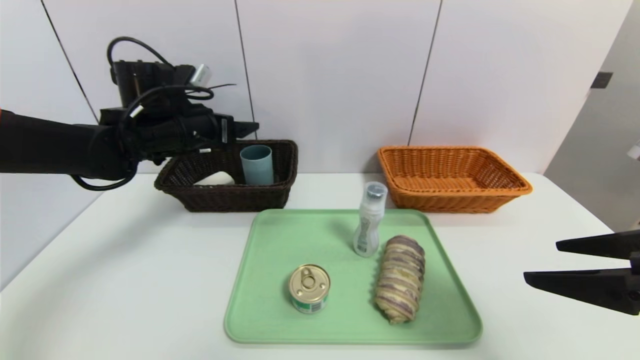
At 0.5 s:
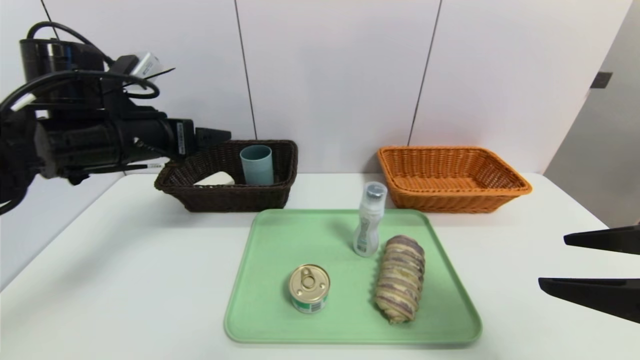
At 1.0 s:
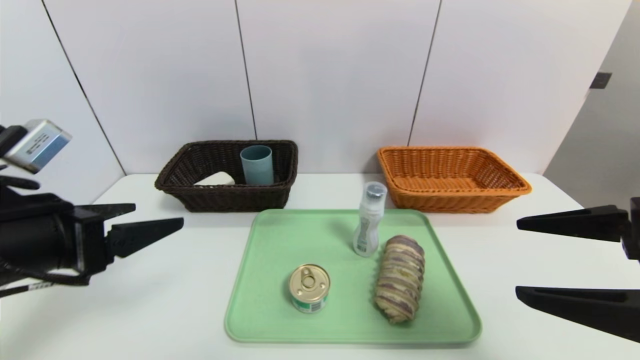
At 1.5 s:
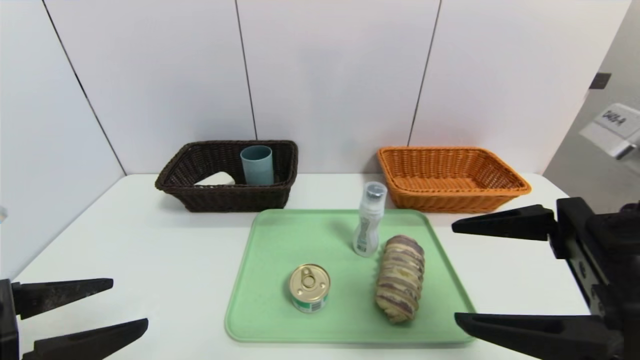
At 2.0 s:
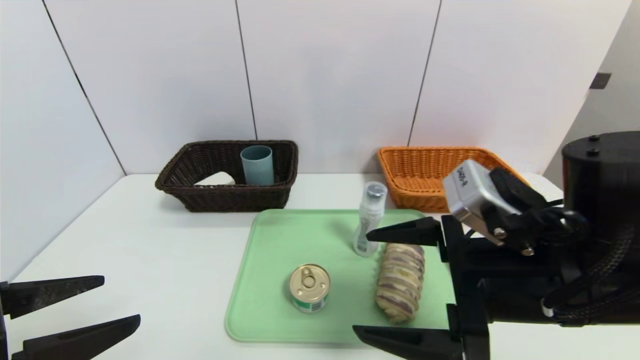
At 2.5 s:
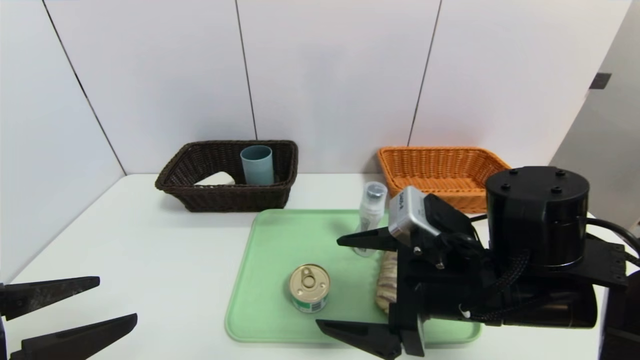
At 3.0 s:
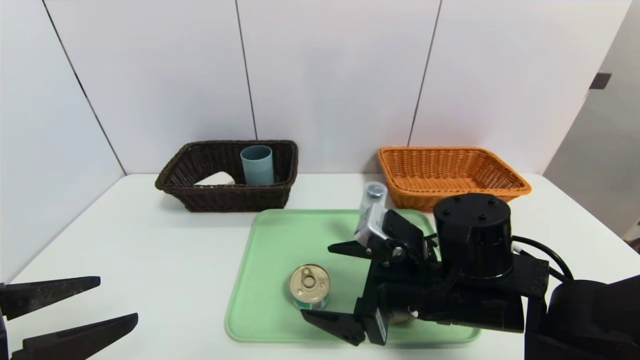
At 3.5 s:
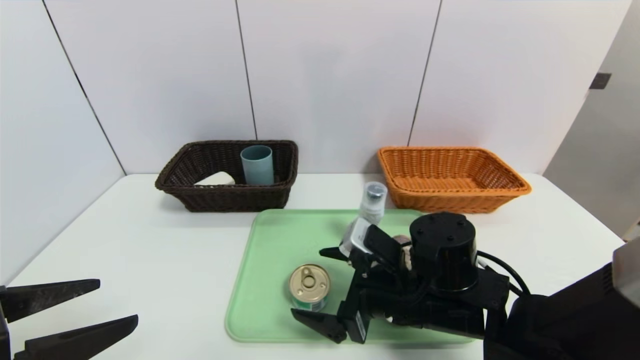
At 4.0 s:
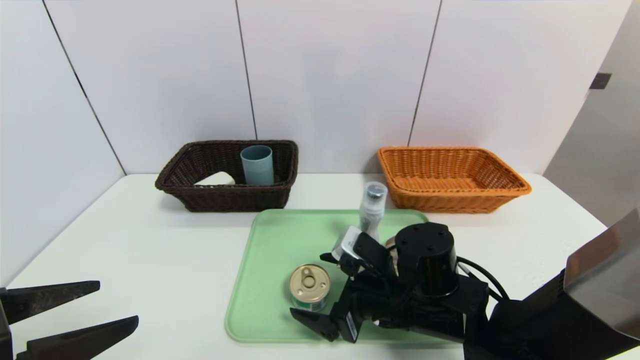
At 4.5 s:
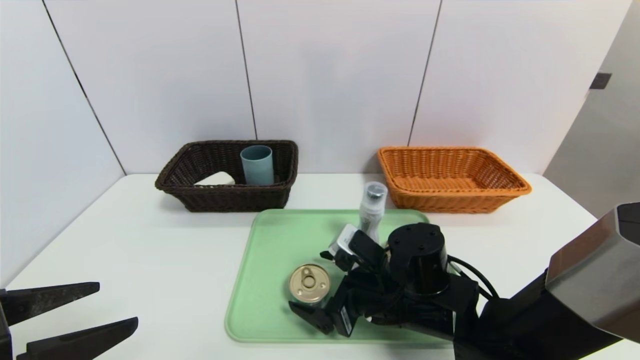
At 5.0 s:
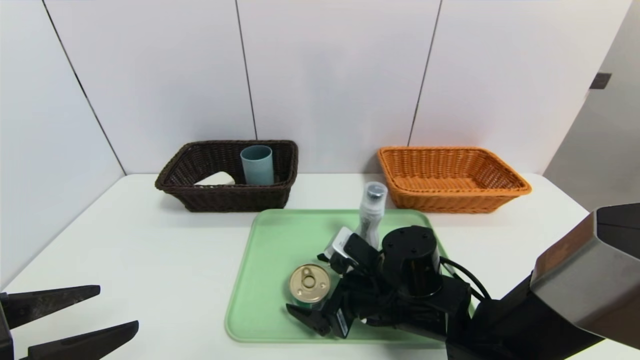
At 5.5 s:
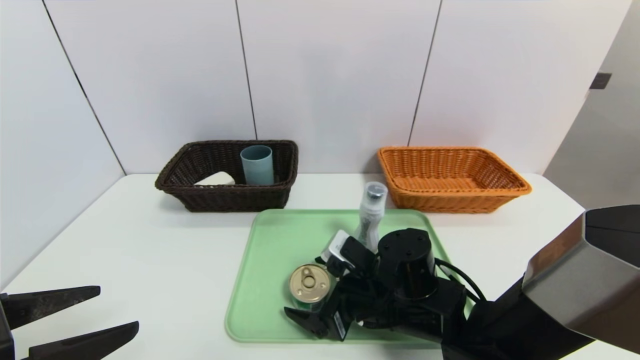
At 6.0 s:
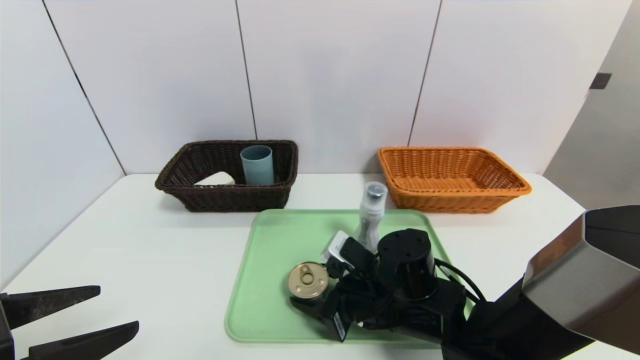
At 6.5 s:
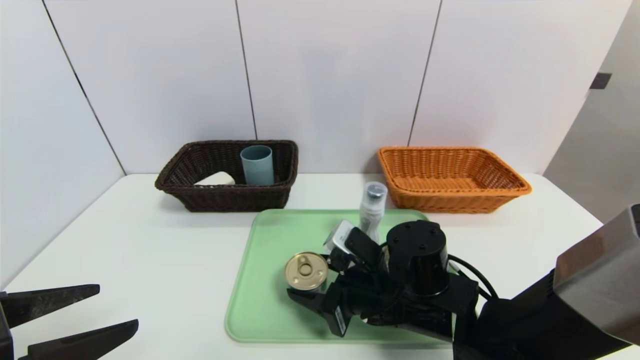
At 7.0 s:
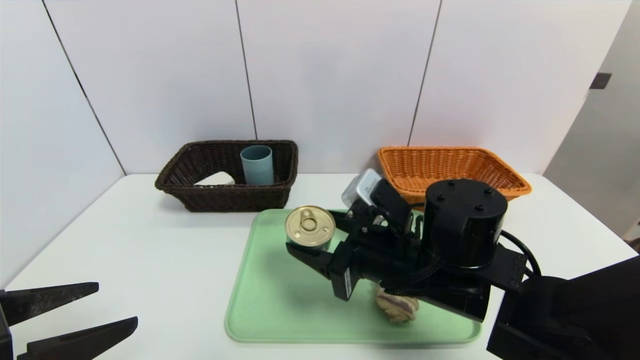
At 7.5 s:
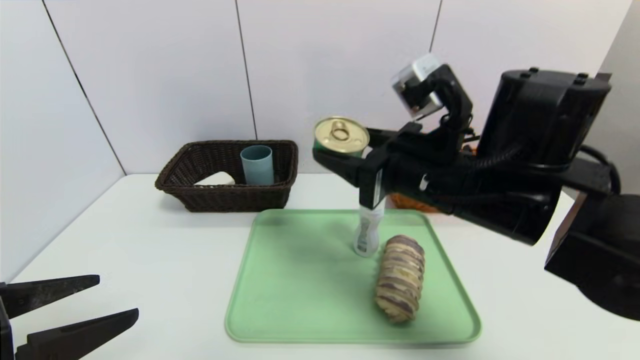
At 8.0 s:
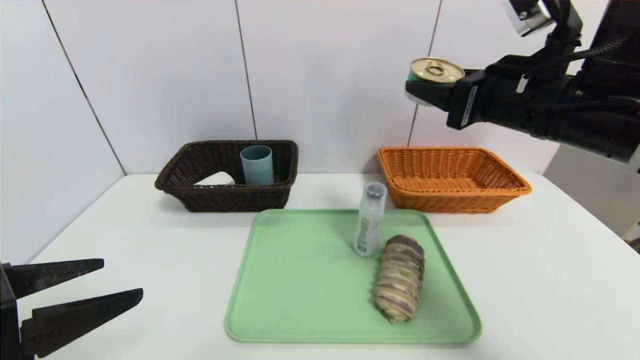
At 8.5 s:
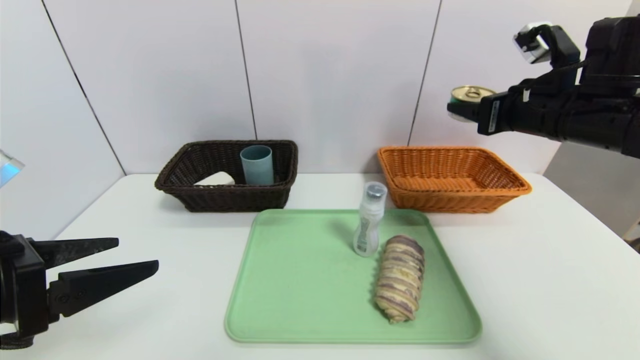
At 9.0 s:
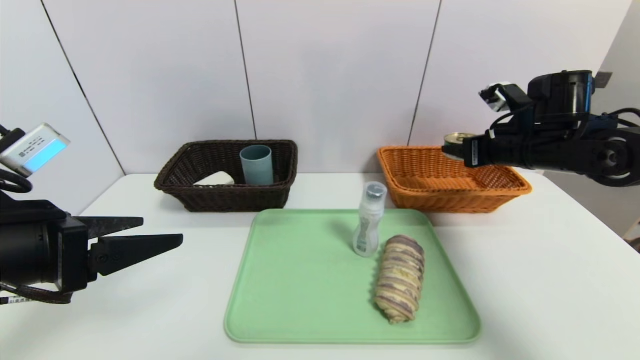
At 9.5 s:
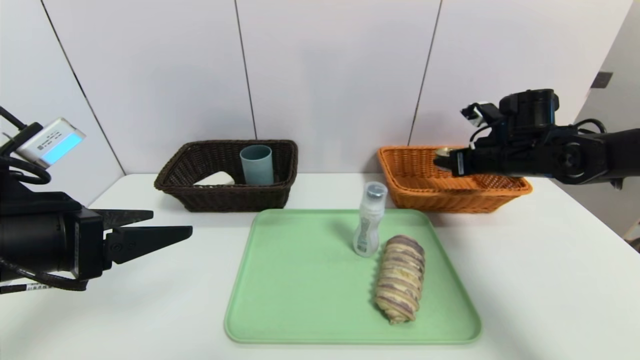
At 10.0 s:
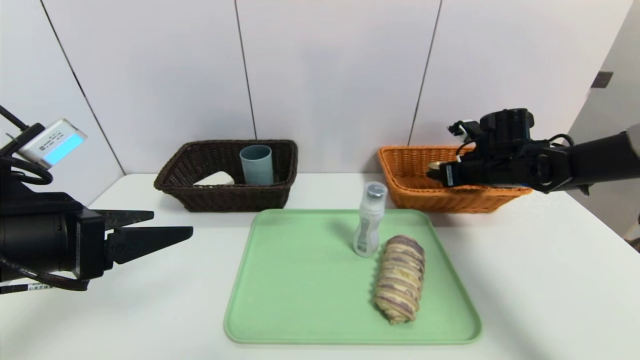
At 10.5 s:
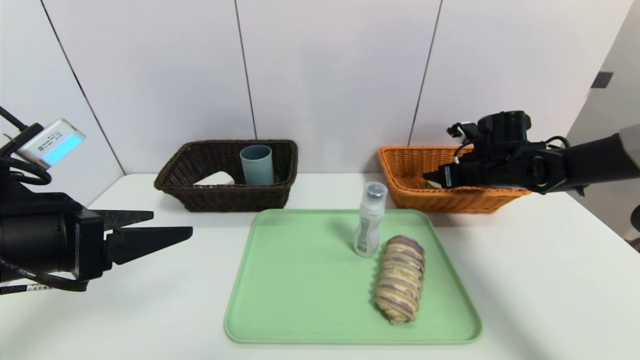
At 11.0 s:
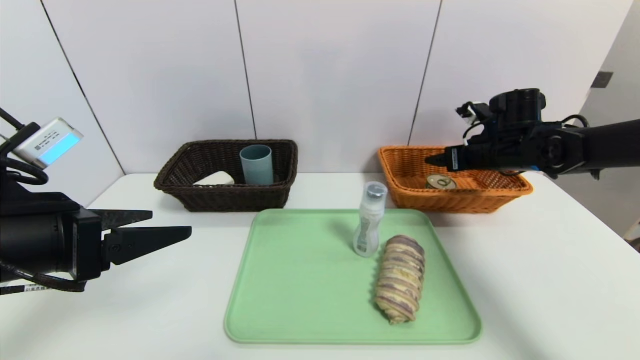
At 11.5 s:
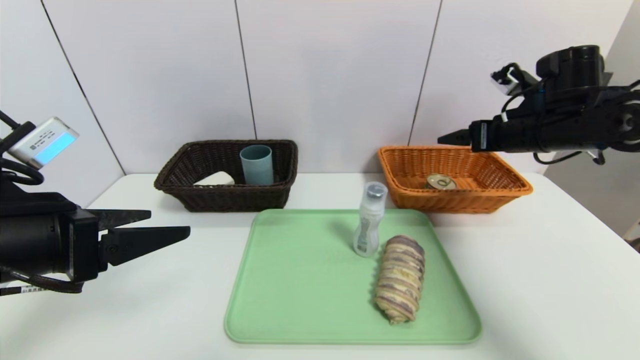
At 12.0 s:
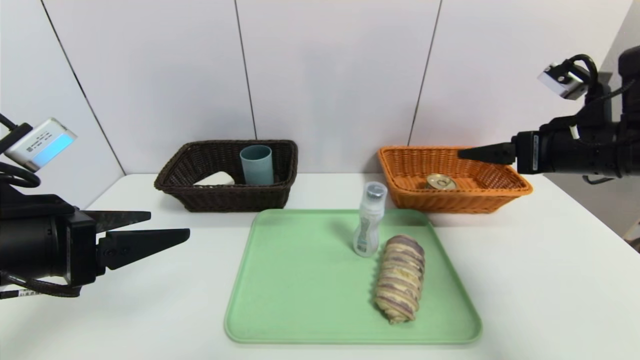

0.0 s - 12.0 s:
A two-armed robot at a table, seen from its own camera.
Task of the whole recording: place the food in the right basket with the right gripper, and place the non food items in the left basket with the left gripper.
Step, 0.0 s - 10.5 s: Grasp the tin and put it in the right basket.
0.0 s - 2.0 s: The left gripper moves backward, approximately 30 cm, while the right gripper travels to the left by about 10 cm.
2.0 s - 4.0 s: The right gripper moves downward, to the left and forward, roughly 15 cm.
4.0 s - 6.0 s: The right gripper closes its fingers.
6.0 s - 8.0 s: The right gripper goes about 25 cm upward and to the right.
8.0 s - 10.0 s: The right gripper travels forward, downward and to the right by about 25 cm. Meanwhile the left gripper shifts about 5 cm forward.
10.0 s - 12.0 s: The right gripper is displaced backward and upward by some 20 cm, and opens.

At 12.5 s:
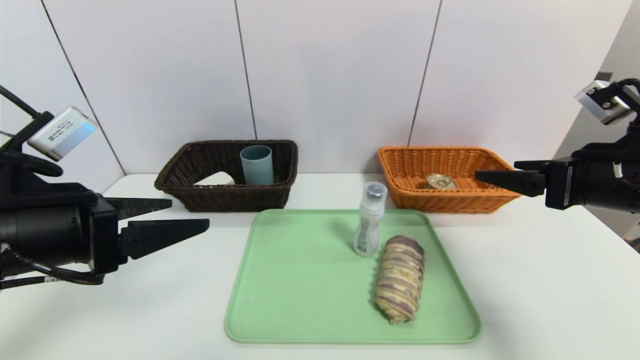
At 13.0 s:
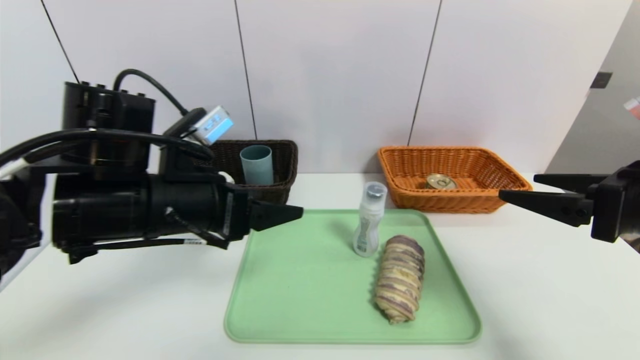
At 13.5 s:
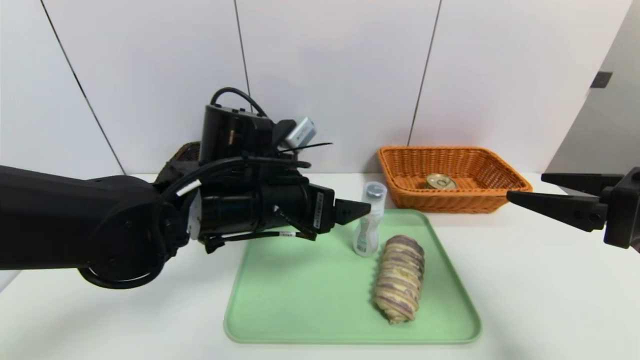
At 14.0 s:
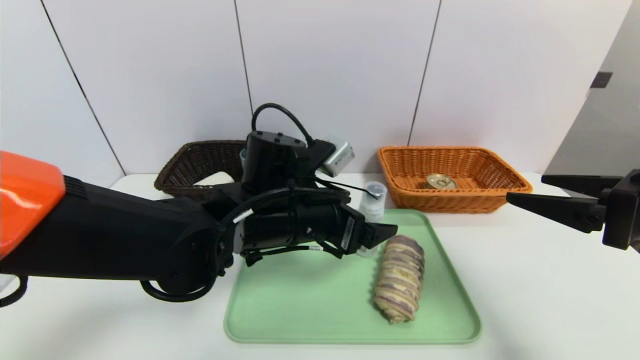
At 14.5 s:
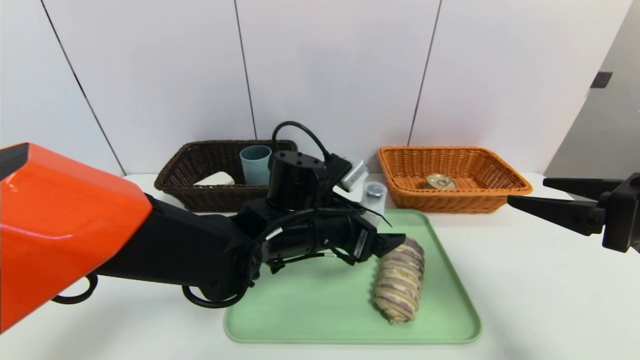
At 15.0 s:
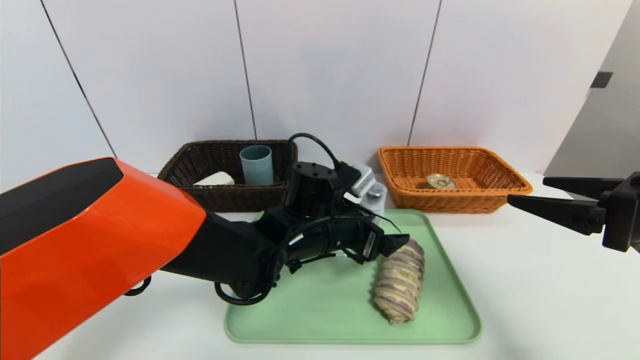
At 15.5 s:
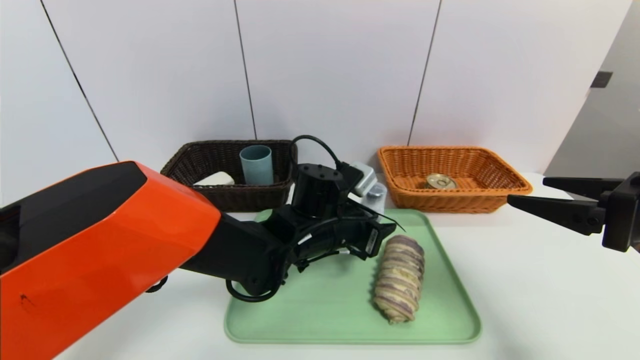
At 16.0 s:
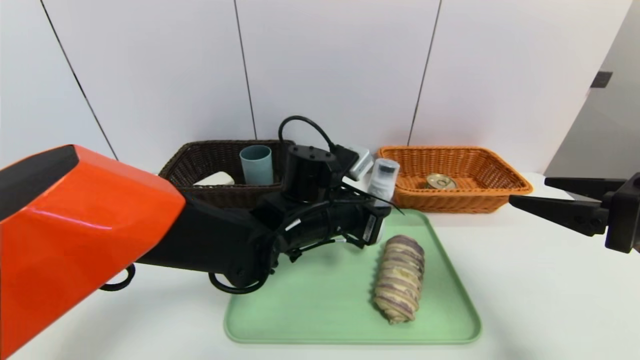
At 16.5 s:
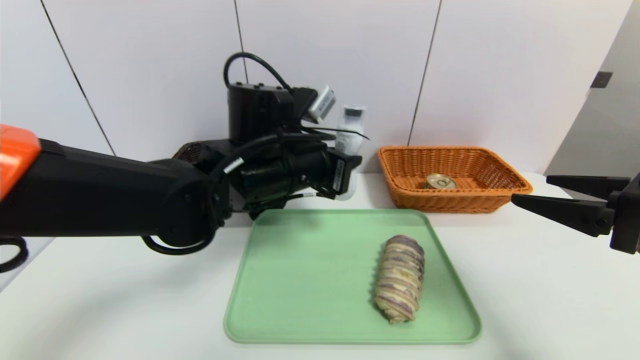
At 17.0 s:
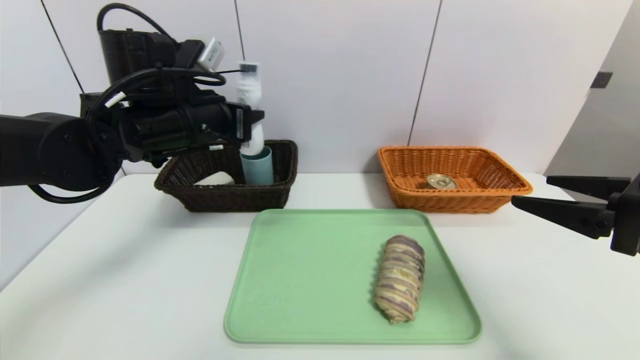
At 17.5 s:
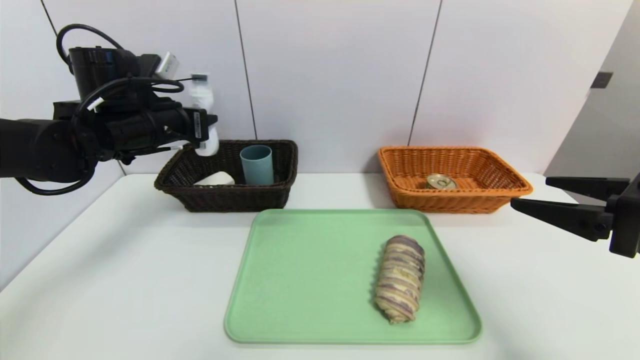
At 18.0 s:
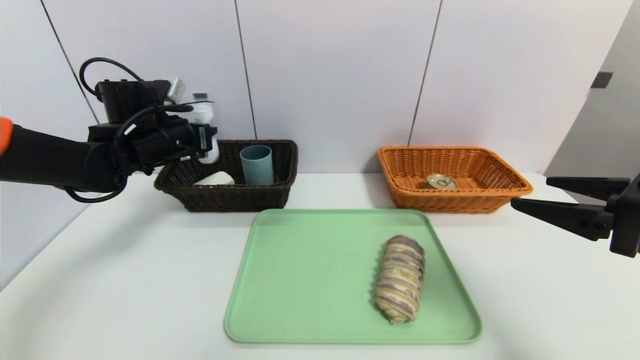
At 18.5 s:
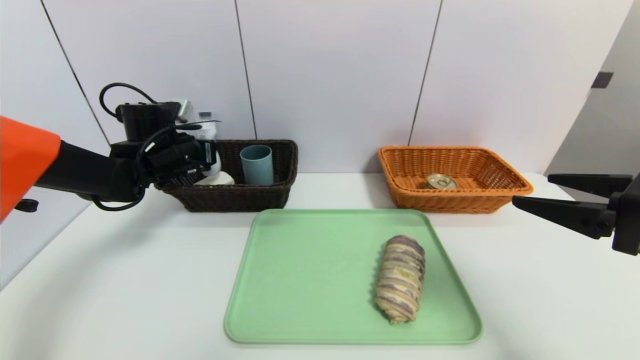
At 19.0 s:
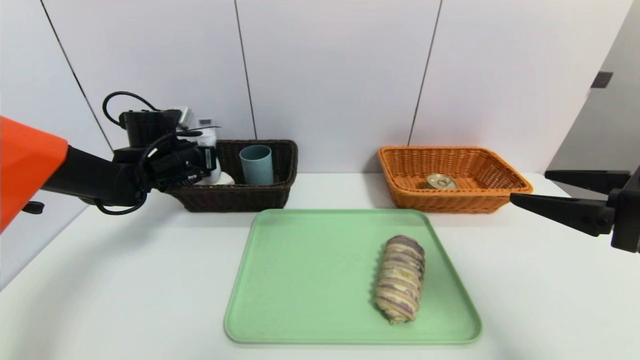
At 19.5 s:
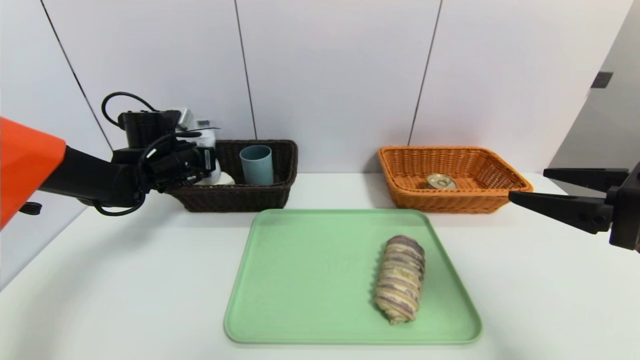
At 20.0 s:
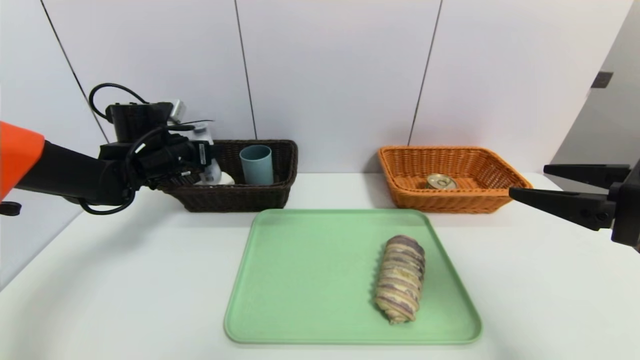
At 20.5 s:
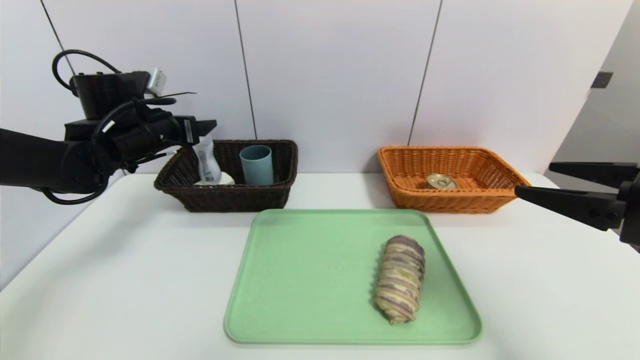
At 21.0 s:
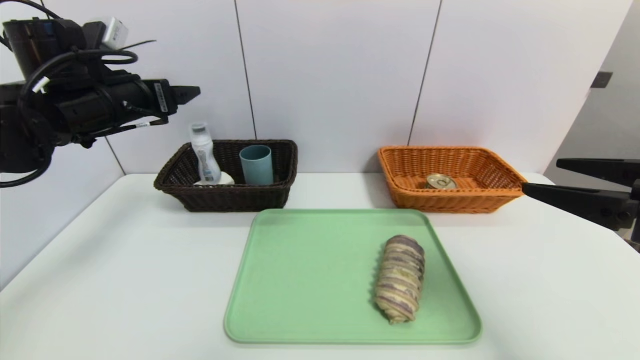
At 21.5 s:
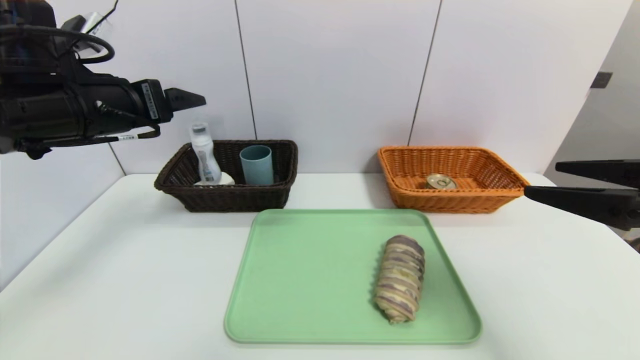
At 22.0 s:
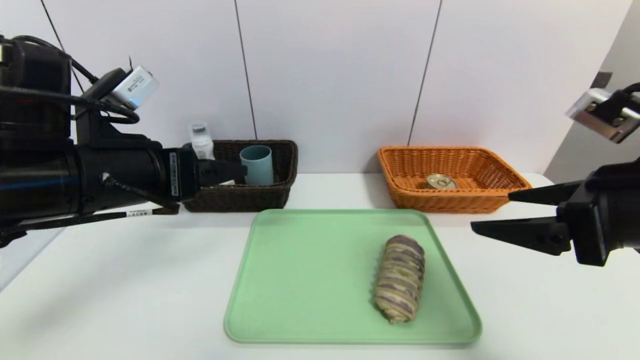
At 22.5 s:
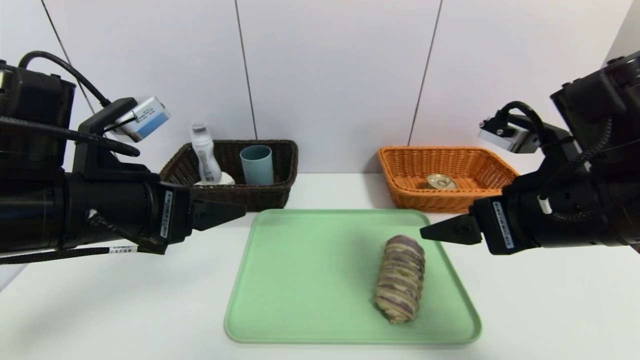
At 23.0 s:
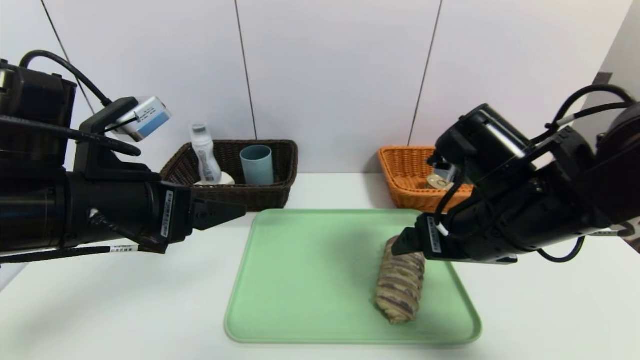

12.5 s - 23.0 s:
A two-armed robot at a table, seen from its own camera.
Task of the whole recording: place the food in the right basket with the right gripper, and place the non food items in the left basket with the left gripper.
Step, 12.5 s - 20.5 s: Grasp the washing liquid and put it in the left basket.
12.5 s - 14.5 s: The right gripper heads backward, covering about 5 cm. Meanwhile the left gripper is displaced to the right and forward by approximately 25 cm.
14.5 s - 16.5 s: The left gripper heads upward, covering roughly 10 cm, and closes its fingers.
16.5 s - 19.0 s: The left gripper heads to the left and forward, covering roughly 25 cm.
19.0 s - 21.0 s: The left gripper goes about 15 cm upward and backward, and opens up.
21.0 s - 23.0 s: The right gripper goes some 15 cm to the left and forward; the left gripper moves backward and to the right, some 15 cm.
